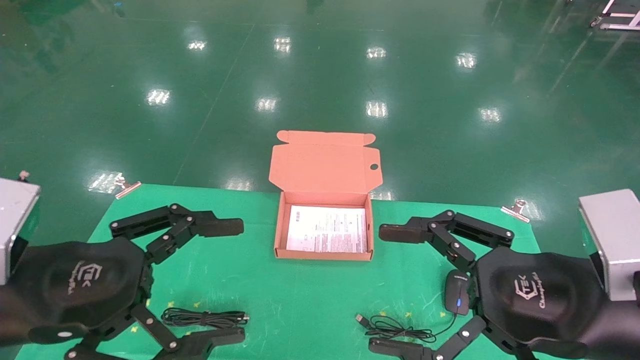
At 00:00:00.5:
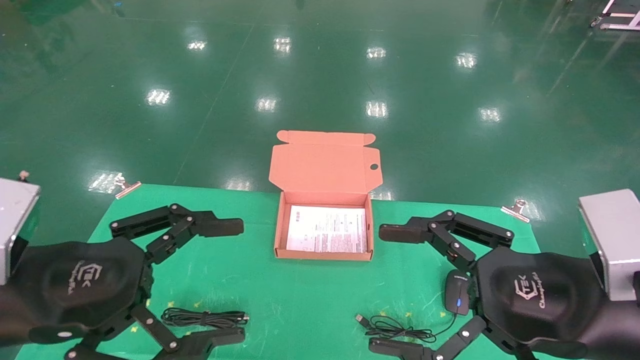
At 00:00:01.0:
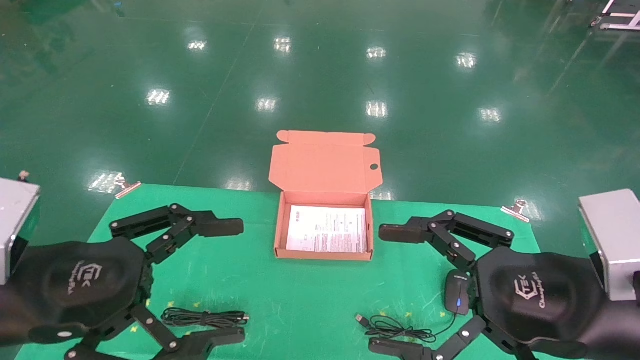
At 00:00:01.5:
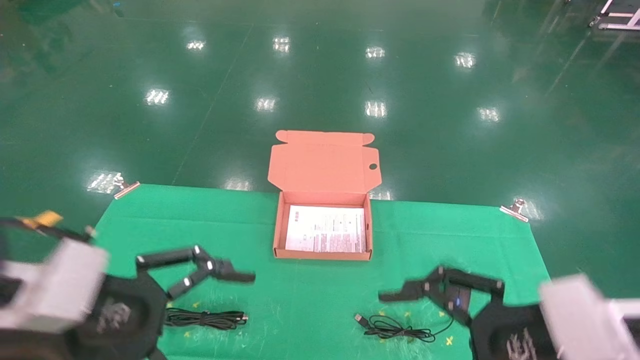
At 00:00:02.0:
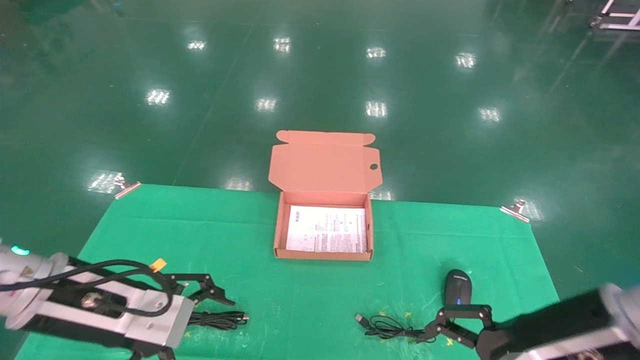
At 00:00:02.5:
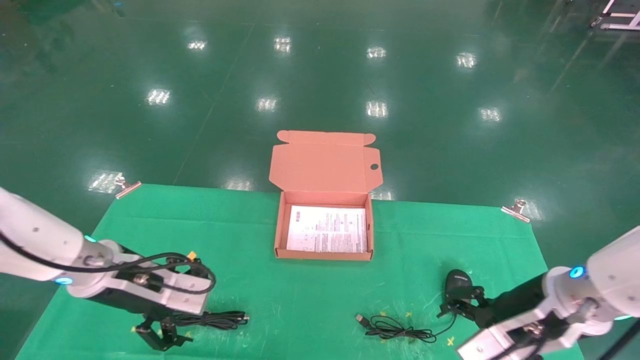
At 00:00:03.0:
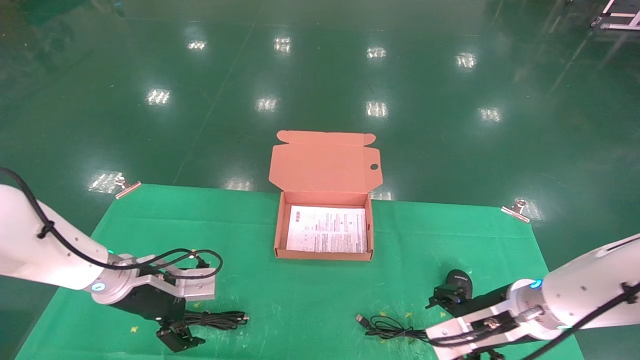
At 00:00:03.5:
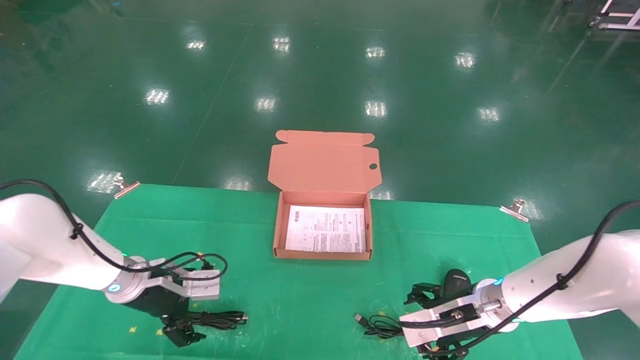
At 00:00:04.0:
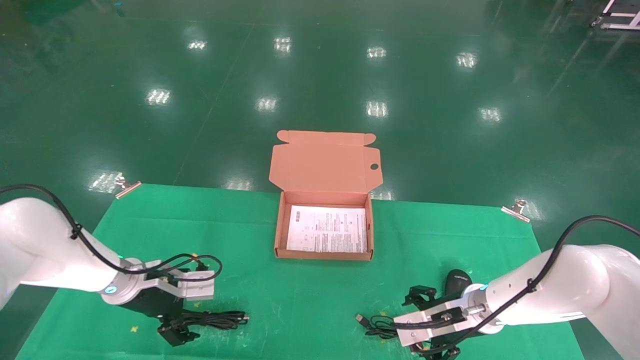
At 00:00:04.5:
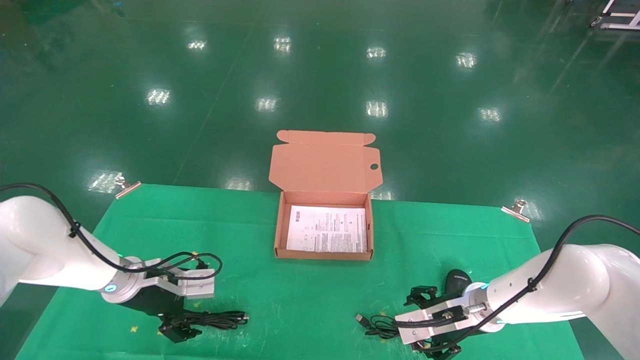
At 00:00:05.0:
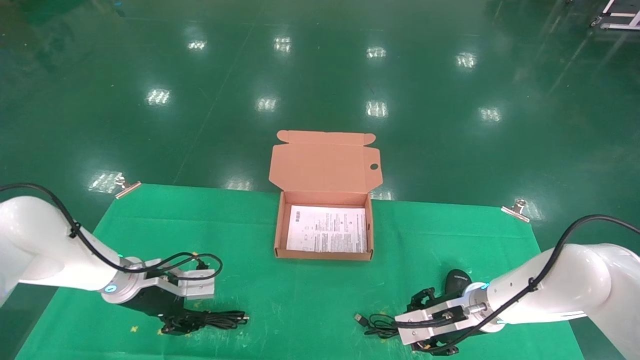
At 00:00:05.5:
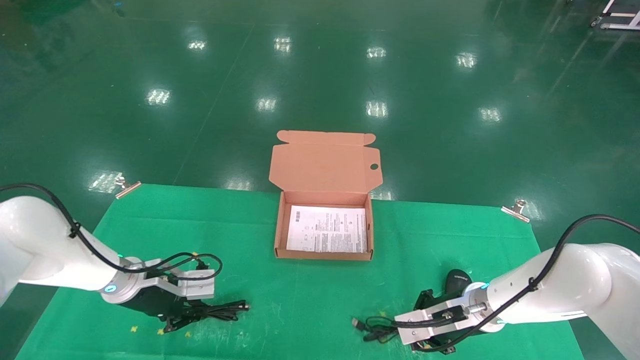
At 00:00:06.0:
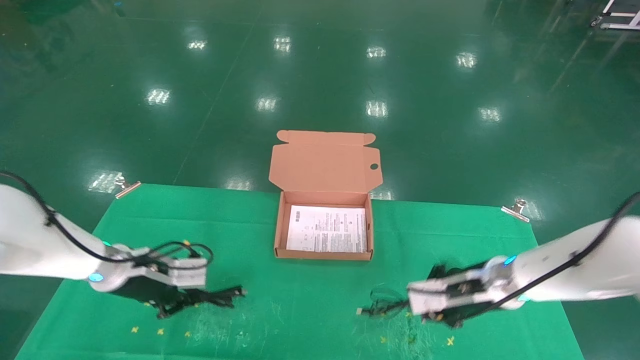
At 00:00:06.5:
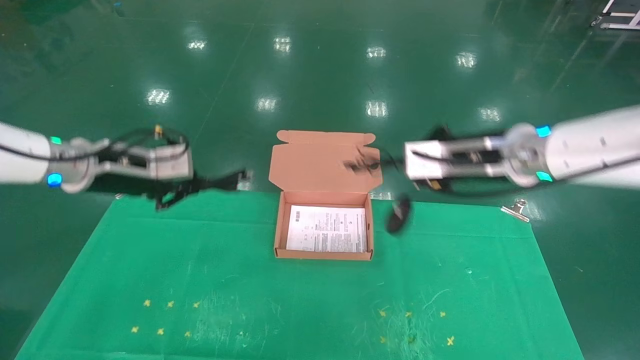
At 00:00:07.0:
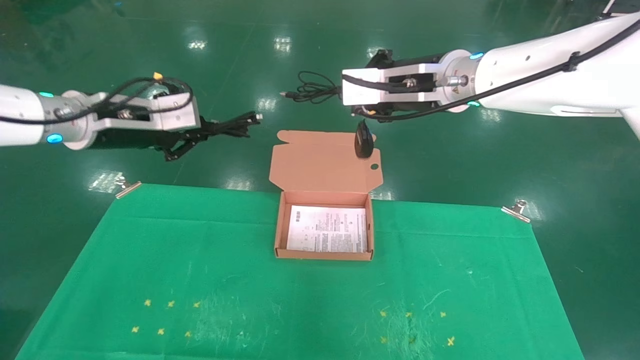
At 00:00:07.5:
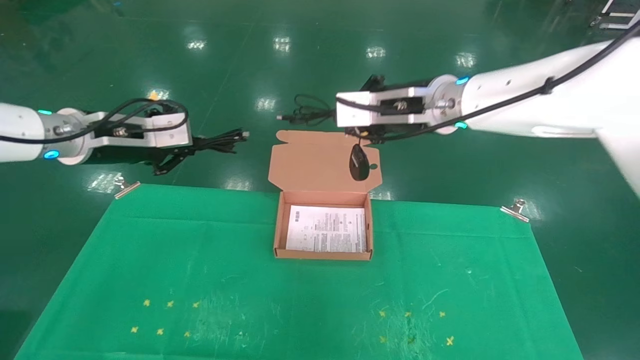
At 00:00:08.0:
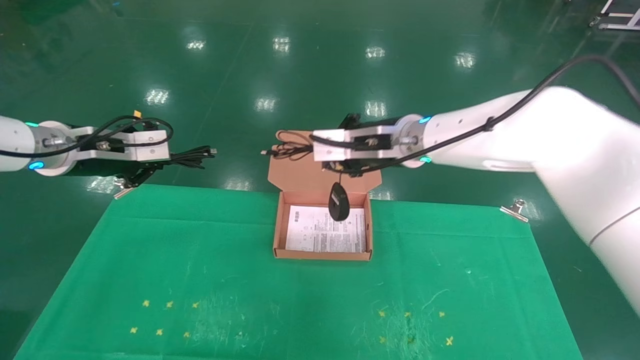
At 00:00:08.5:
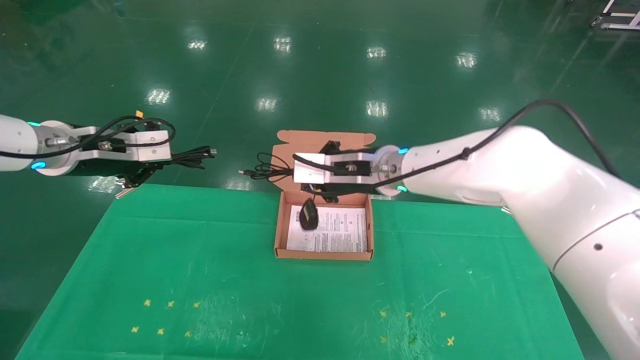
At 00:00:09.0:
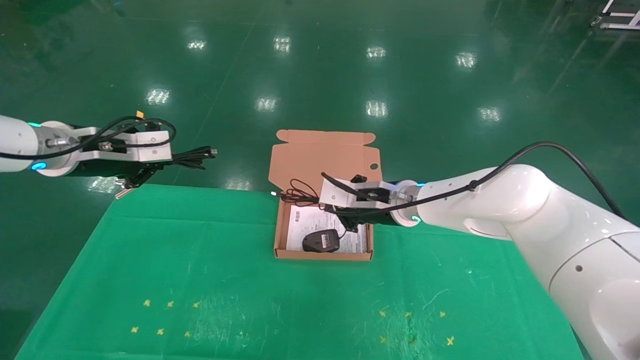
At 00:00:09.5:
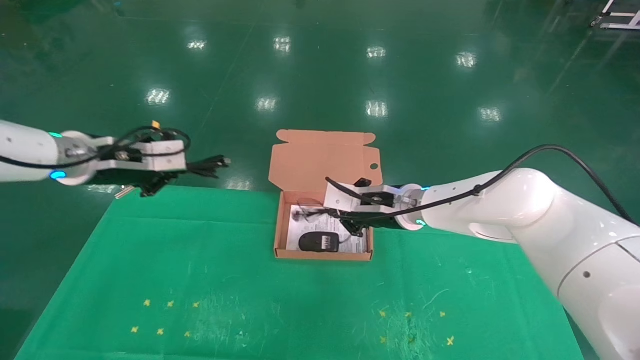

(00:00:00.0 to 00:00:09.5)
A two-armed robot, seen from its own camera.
Task of the whole recording: grasp data cable left put into box grasp mouse right put into box.
Step, 00:00:01.5 - 00:00:06.0: Grab and pick up both the mouse and power cord from the accessory packaging area at the same time.
00:00:00.0 - 00:00:02.0: The left gripper moves forward, some 10 cm. The right gripper shifts roughly 5 cm forward.
00:00:02.0 - 00:00:04.0: Both grippers travel together forward and downward, about 20 cm.
00:00:04.0 - 00:00:05.5: The left gripper closes its fingers. The right gripper closes up.
00:00:05.5 - 00:00:07.5: Both grippers move upward, approximately 25 cm.
00:00:07.5 - 00:00:09.5: The right gripper goes some 15 cm downward.

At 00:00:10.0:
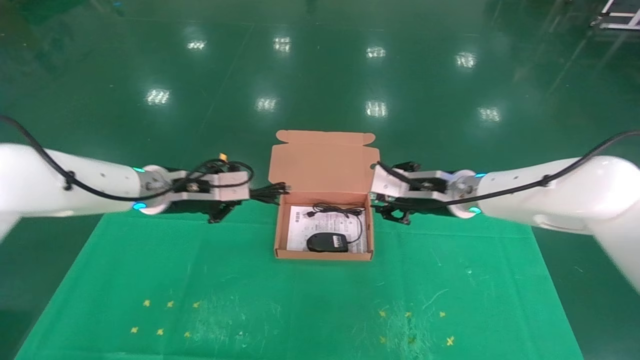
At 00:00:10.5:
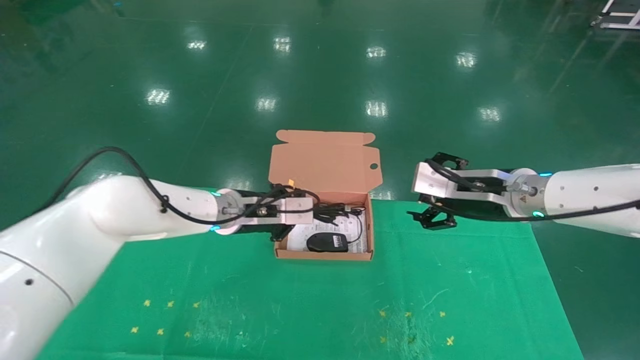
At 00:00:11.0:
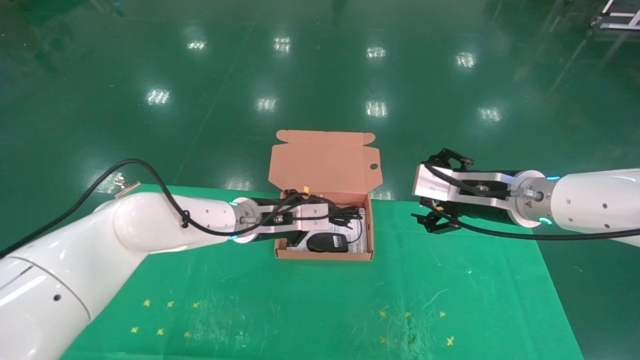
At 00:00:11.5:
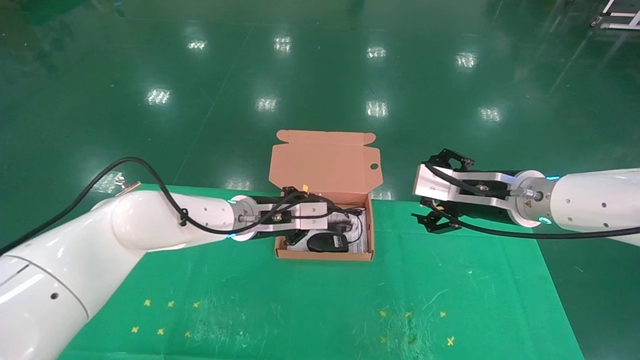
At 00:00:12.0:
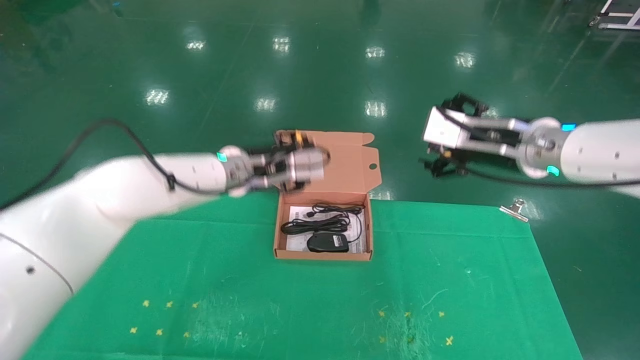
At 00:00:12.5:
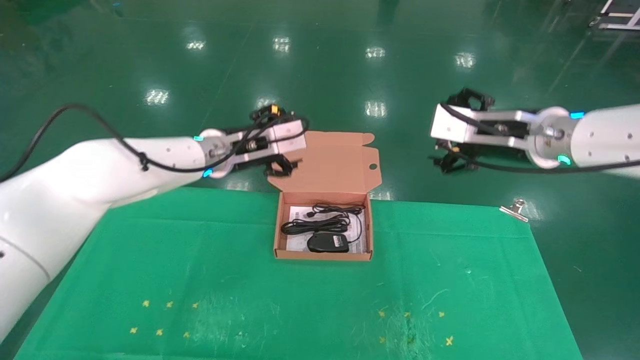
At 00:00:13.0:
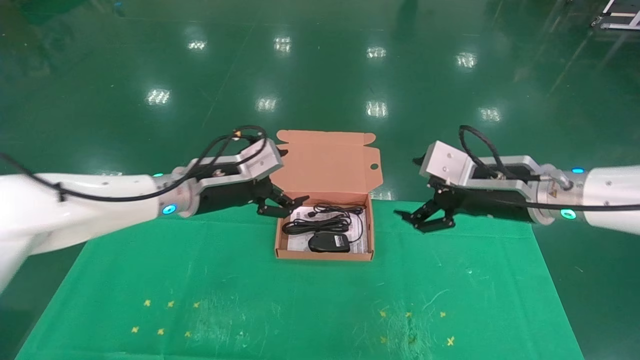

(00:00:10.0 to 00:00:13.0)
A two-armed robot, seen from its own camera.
Task of the whole recording: grasp data cable left put into box grasp mouse right put into box.
Step, 00:00:10.0 - 00:00:12.0: Place the mouse and power cord into the box.
00:00:10.0 - 00:00:11.5: The left gripper travels to the right and downward by roughly 15 cm. The right gripper goes some 5 cm backward, and opens.
00:00:11.5 - 00:00:13.0: The left gripper heads to the left and upward, covering approximately 10 cm, and opens up.
